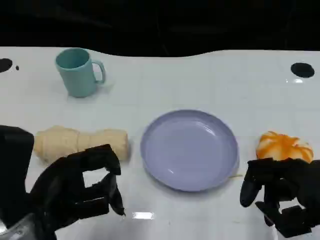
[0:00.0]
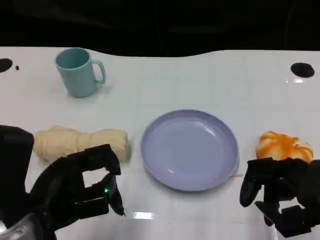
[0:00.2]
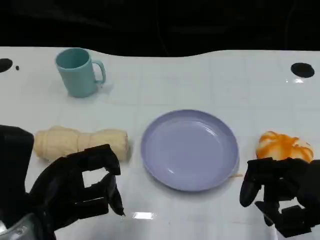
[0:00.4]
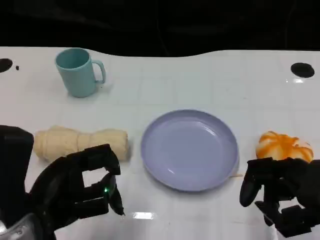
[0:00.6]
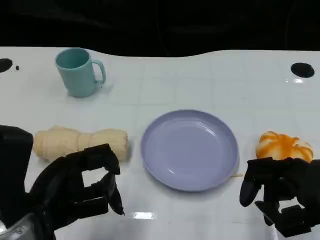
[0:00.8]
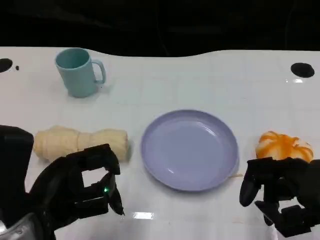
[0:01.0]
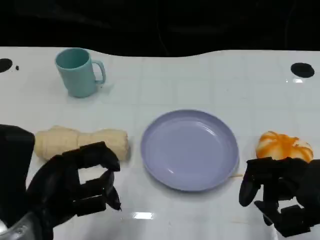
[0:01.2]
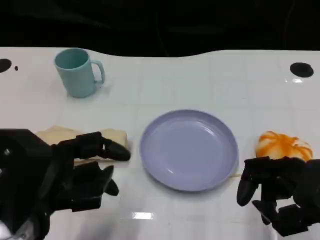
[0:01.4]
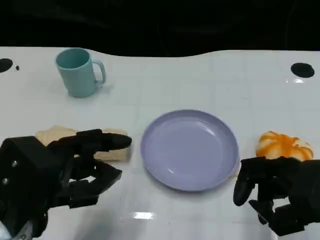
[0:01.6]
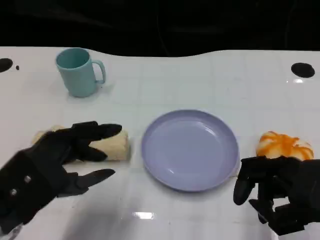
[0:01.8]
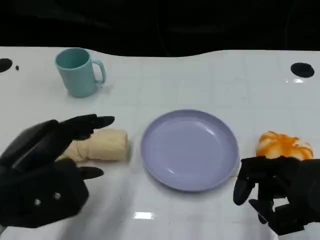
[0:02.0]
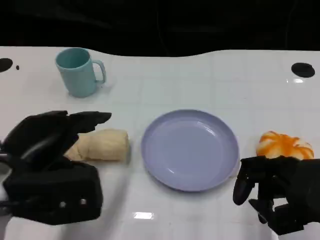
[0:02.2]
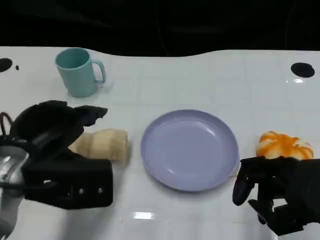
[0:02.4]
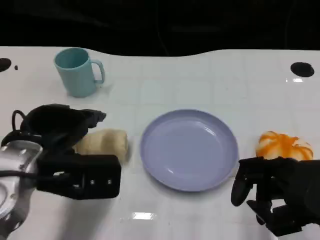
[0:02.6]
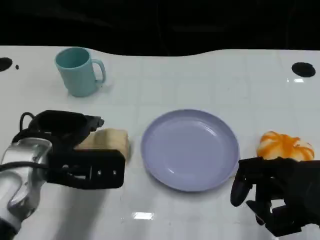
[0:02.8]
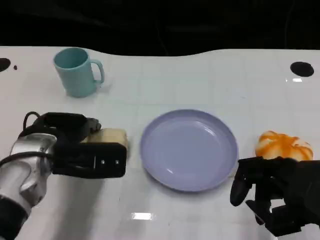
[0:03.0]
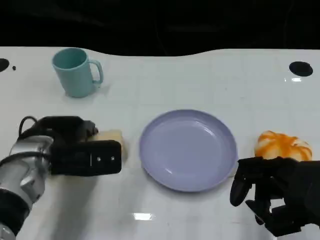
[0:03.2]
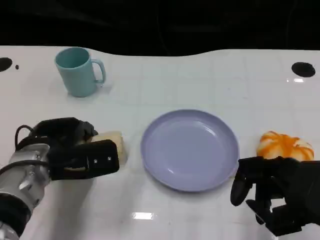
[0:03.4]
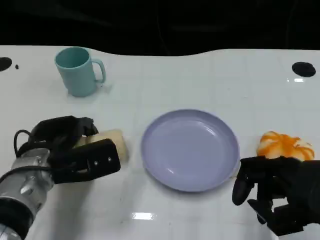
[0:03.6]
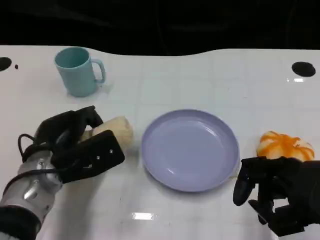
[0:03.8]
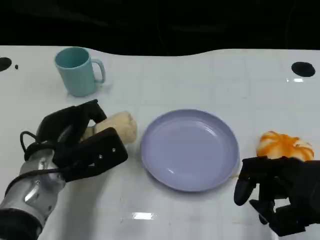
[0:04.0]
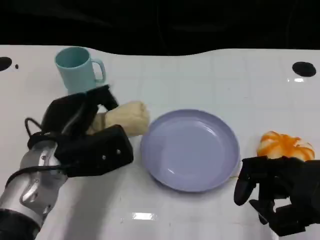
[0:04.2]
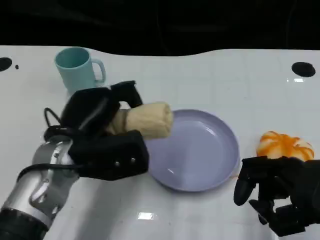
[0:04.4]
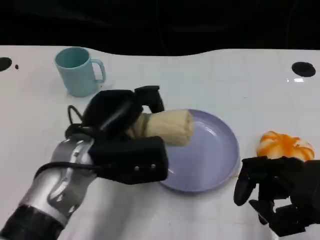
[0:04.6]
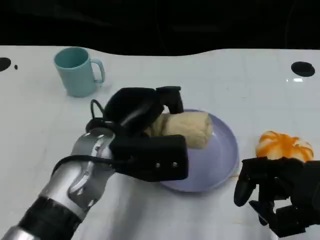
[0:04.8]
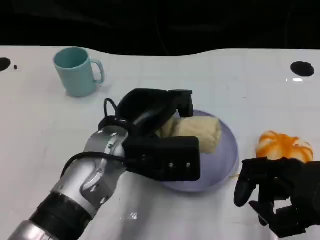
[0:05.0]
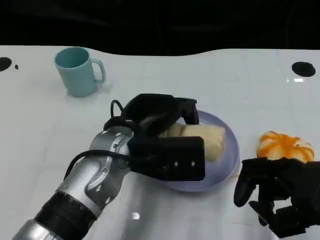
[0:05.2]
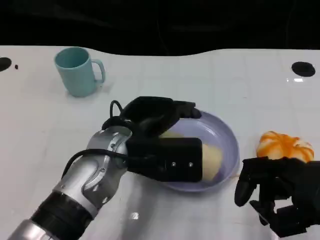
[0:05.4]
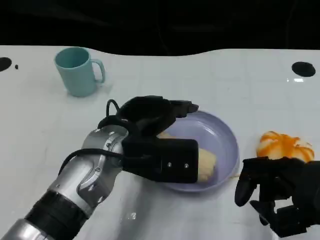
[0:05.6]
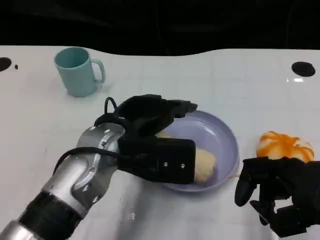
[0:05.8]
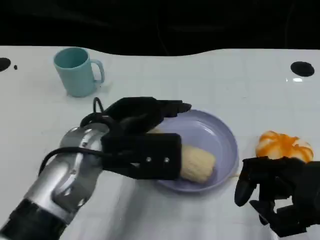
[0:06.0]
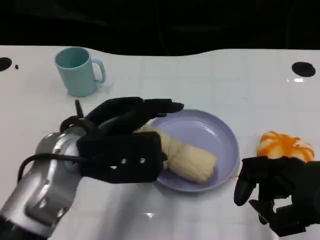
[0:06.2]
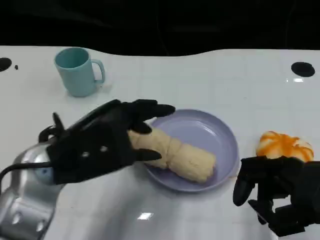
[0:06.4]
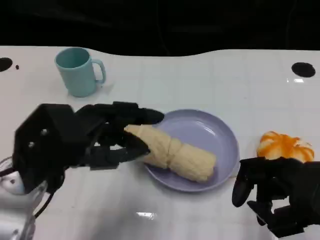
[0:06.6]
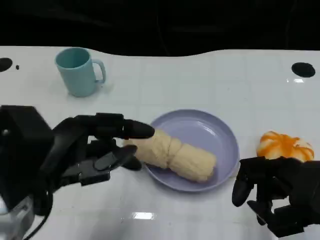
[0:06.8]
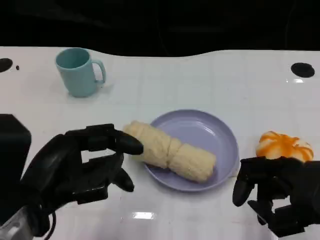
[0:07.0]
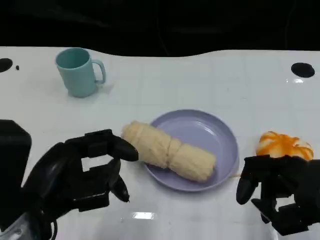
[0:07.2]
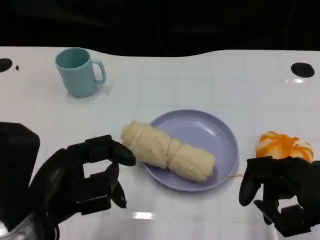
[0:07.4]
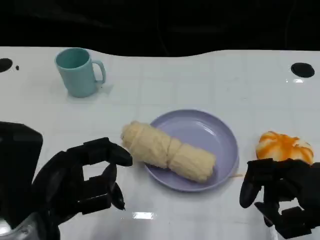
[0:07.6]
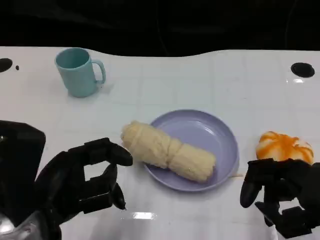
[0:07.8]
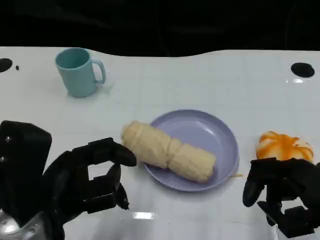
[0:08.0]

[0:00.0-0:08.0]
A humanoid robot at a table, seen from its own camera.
Task of the whole recording: Grasp the towel on the left side of the plate with the left hand and place it into the plate.
0:01.6 to 0:03.2: The left hand is displaced forward and downward by roughly 15 cm.
0:03.2 to 0:04.8: The left hand shifts approximately 10 cm to the right and upward.
0:04.8 to 0:06.4: The left hand moves to the left, approximately 10 cm.
0:06.4 to 0:08.0: The left hand shifts approximately 5 cm backward.

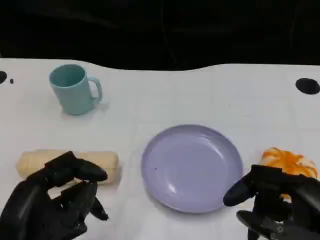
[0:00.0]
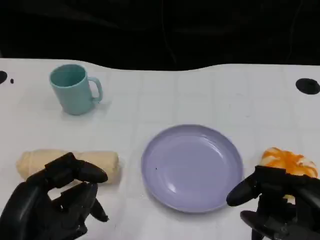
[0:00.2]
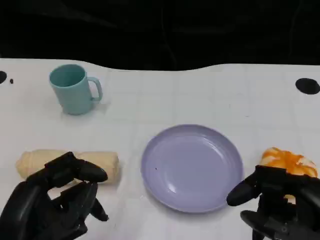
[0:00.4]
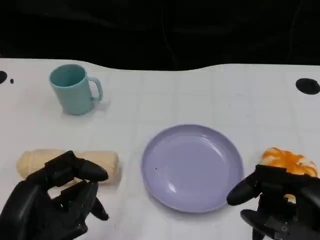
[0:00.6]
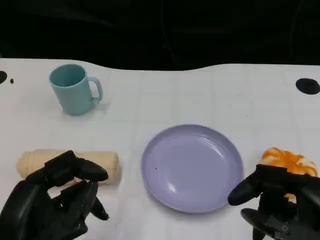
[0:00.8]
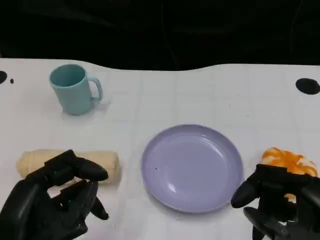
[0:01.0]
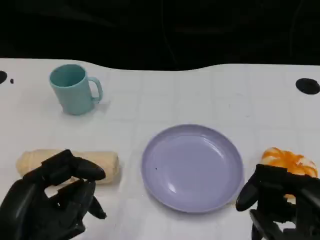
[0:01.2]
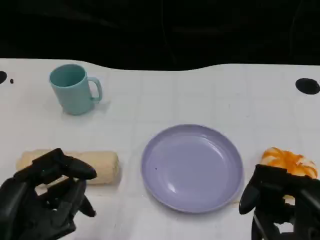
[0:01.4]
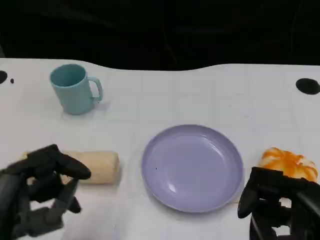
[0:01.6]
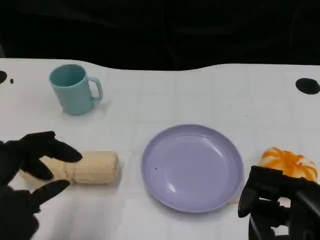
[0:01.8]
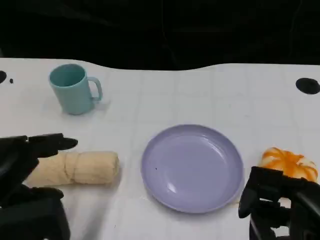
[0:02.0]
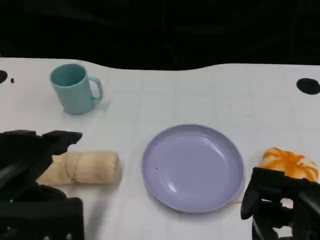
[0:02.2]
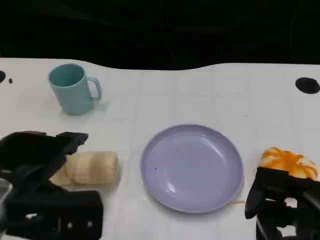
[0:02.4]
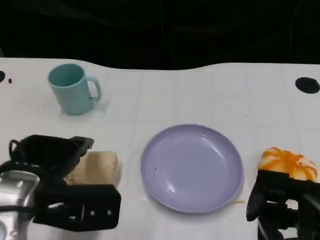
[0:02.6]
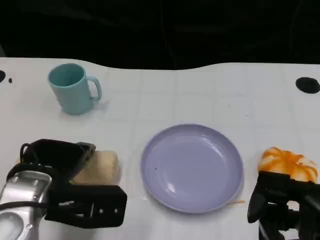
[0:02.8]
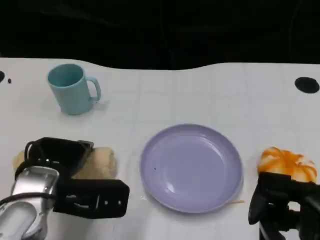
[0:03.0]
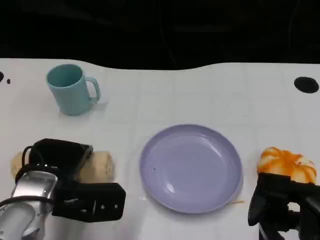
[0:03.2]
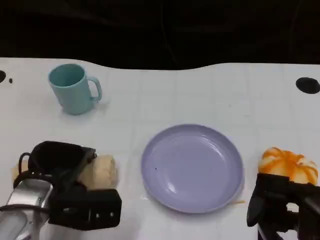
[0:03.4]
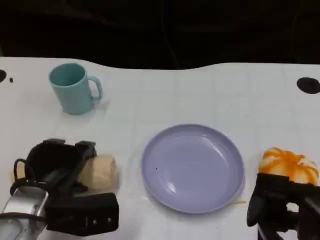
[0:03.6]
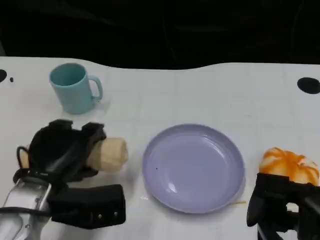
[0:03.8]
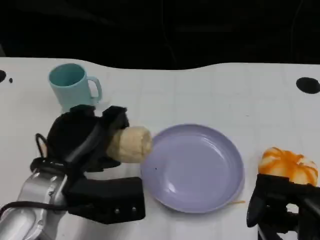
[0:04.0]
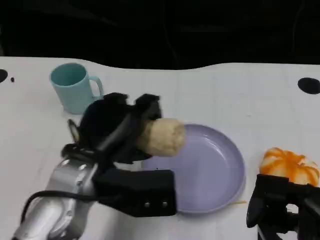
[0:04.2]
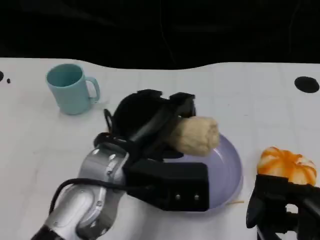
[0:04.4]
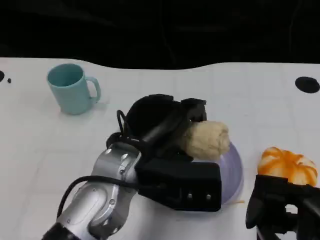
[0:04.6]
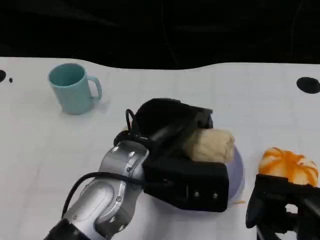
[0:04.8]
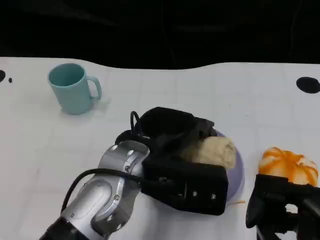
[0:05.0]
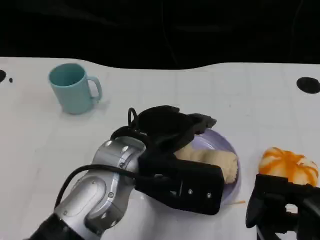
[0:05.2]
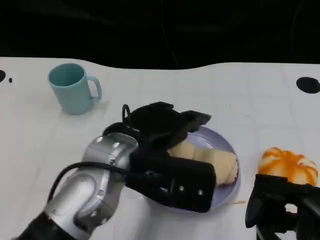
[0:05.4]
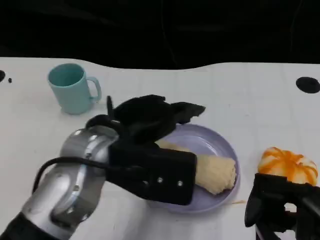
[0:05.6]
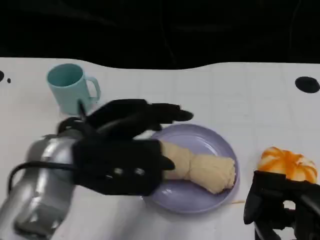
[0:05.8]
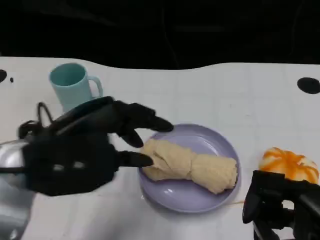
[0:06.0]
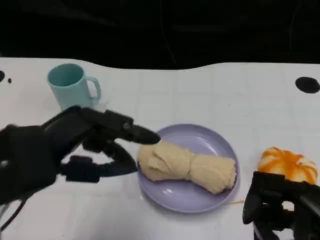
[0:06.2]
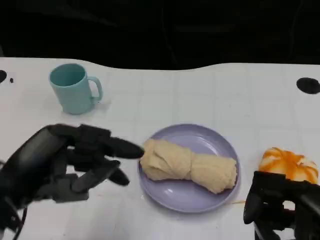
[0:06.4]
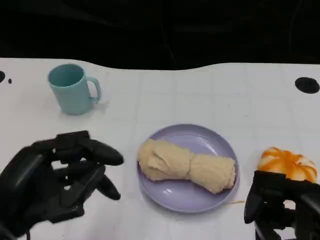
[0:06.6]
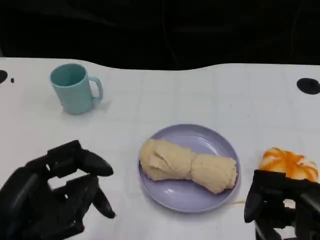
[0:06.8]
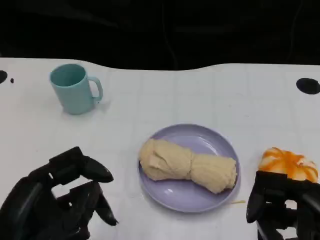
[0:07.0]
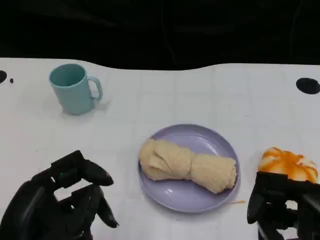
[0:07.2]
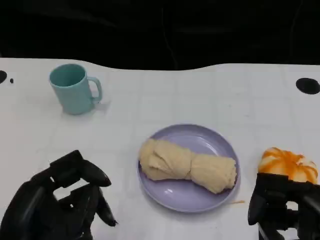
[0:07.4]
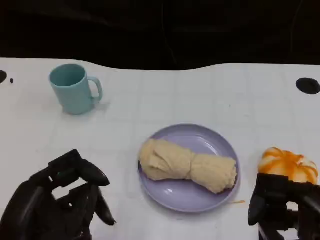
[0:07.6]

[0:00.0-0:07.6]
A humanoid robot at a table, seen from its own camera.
Task of the whole recording: Grasp the towel on the left side of the plate with the left hand and place it into the plate.
0:01.6 to 0:03.0: The left hand goes approximately 15 cm forward, downward and to the right.
0:03.0 to 0:04.6: The left hand moves to the right and upward, roughly 15 cm.
0:04.6 to 0:06.0: The left hand goes about 10 cm to the left.
0:06.0 to 0:07.6: The left hand is displaced backward and downward by some 15 cm.

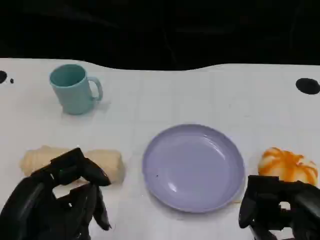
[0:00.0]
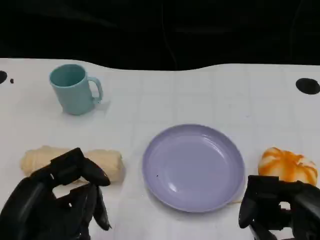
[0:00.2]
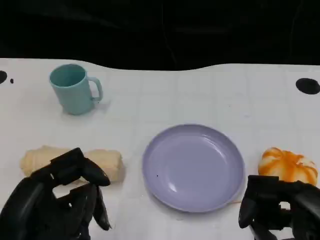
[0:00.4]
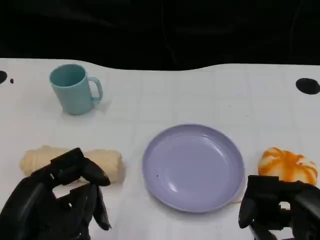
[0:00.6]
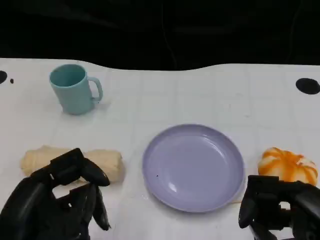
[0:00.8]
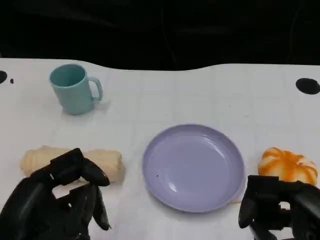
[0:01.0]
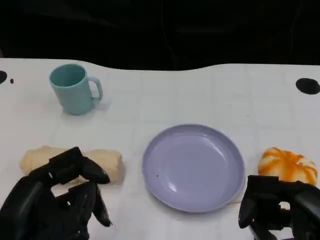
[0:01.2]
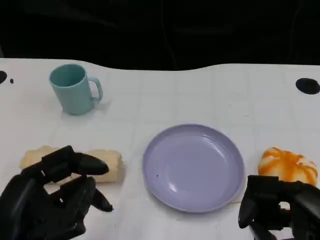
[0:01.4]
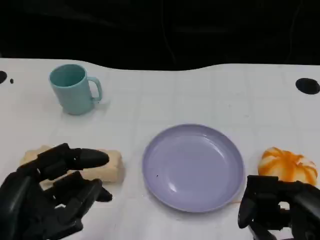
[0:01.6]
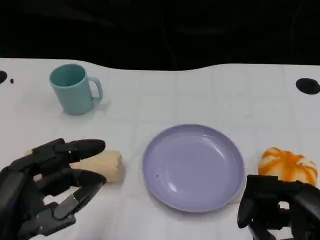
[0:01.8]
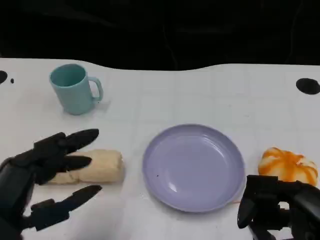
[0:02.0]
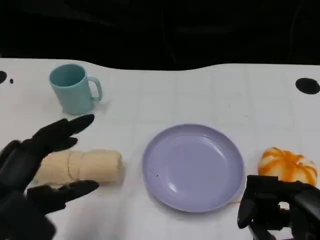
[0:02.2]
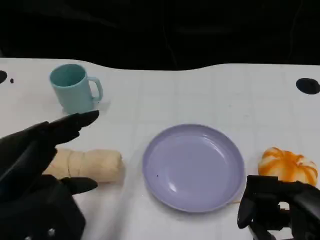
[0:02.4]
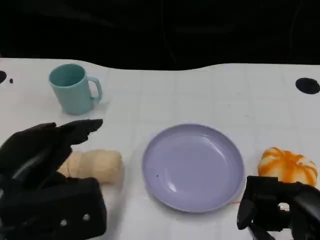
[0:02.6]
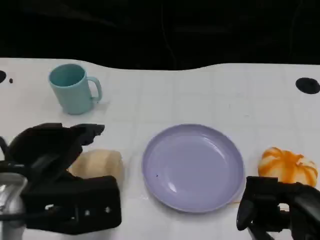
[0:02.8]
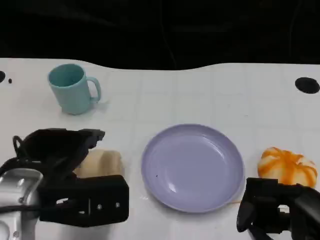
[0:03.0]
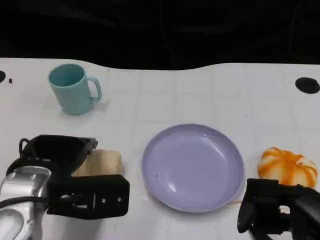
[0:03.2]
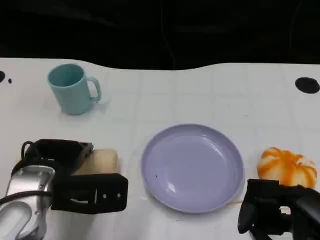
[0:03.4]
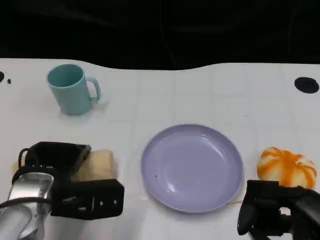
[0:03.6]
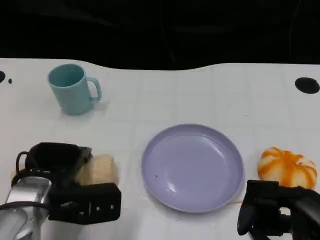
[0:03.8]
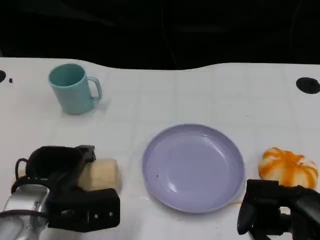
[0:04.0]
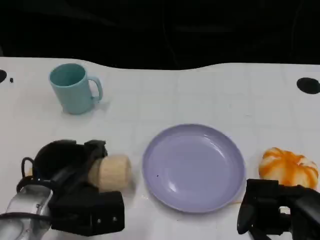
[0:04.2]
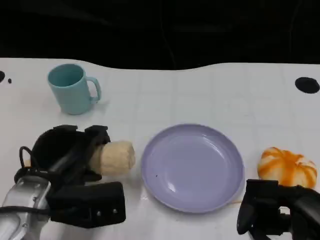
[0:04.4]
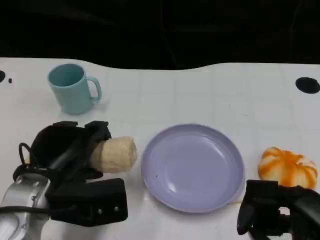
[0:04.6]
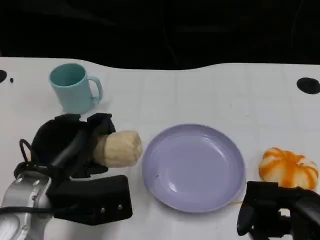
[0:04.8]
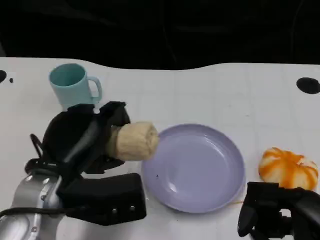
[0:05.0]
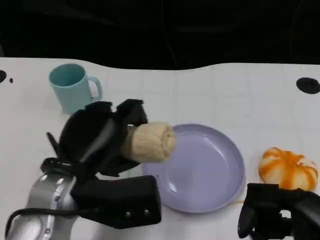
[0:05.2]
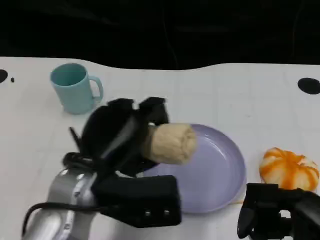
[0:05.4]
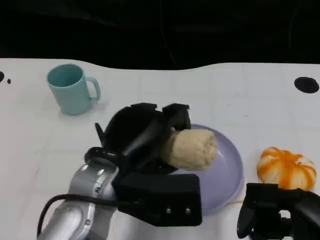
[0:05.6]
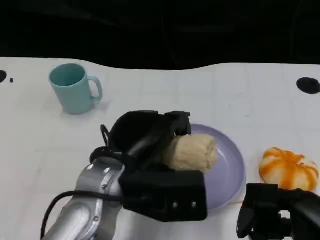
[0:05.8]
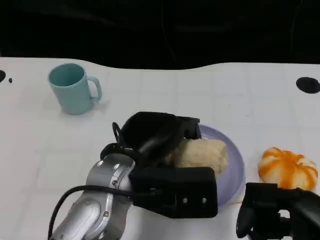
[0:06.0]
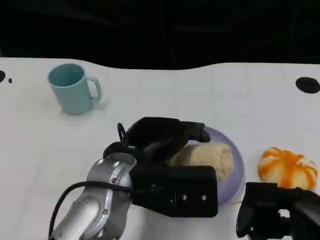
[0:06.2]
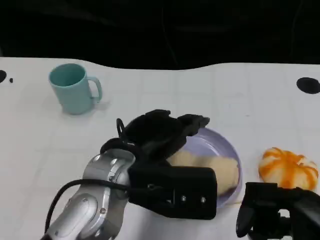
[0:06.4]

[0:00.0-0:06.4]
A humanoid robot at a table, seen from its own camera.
Task of the whole recording: Grasp the towel on the left side of the plate with the left hand and place it into the plate.
0:00.0 to 0:01.6: There are only small adjustments of the hands.
0:01.6 to 0:03.2: The left hand shifts approximately 10 cm forward.
0:04.8 to 0:06.4: The left hand shifts some 10 cm to the right.
